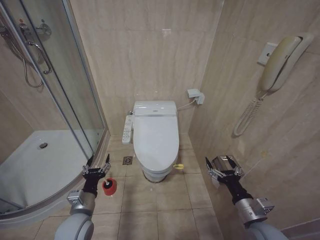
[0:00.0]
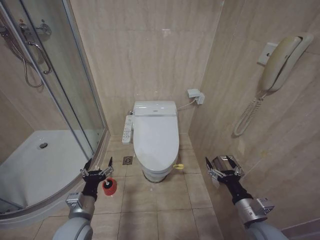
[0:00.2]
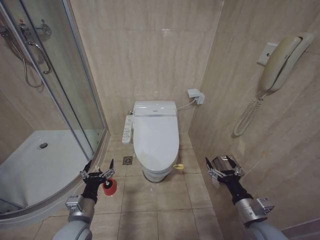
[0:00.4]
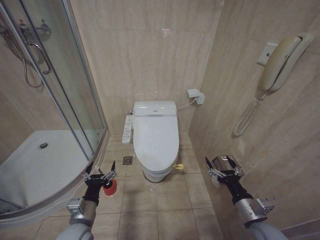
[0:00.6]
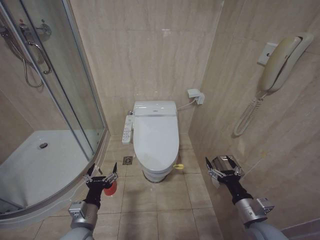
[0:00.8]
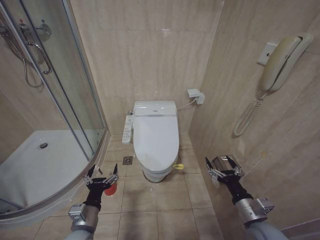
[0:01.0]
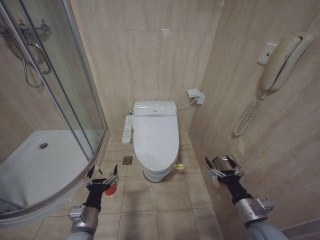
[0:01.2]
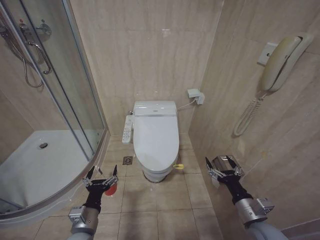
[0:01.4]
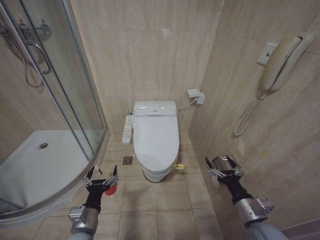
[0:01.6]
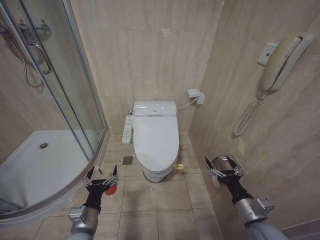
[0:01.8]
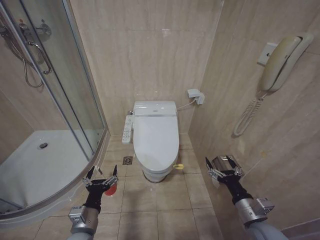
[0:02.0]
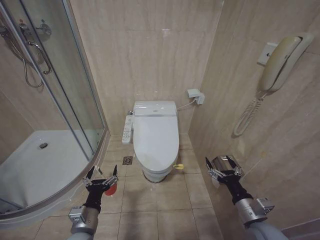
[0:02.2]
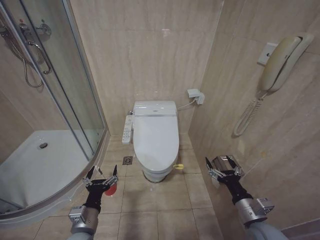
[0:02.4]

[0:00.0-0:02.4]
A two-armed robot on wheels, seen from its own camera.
Task of the whole recording: Open the toilet lid, clean the toilet bowl with a toilet brush, close the toilet lid, and flush.
0:00.0 to 0:01.2: The left gripper is displaced backward by about 5 cm, and opens up.
0:01.2 to 0:02.4: Both grippers stay put.

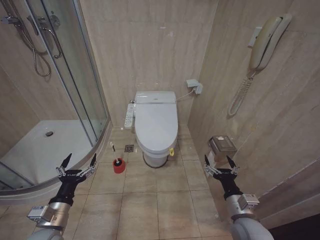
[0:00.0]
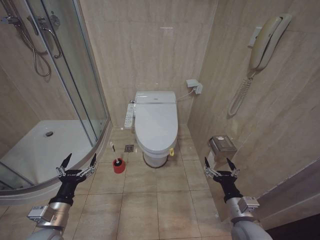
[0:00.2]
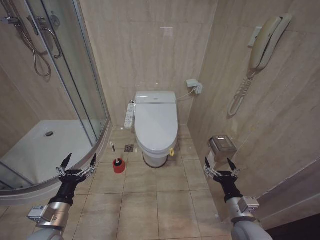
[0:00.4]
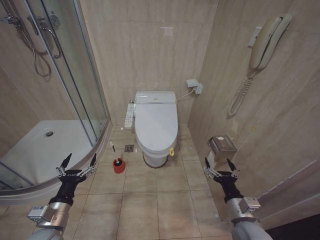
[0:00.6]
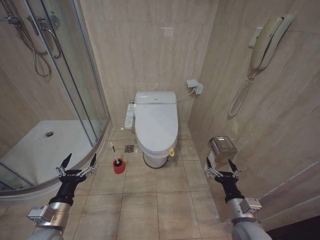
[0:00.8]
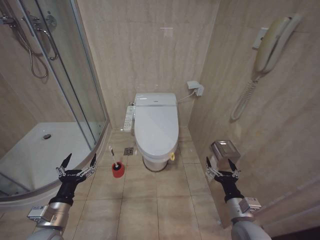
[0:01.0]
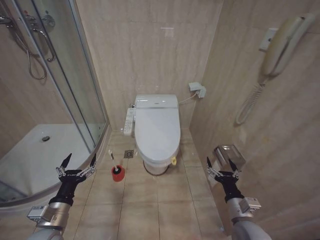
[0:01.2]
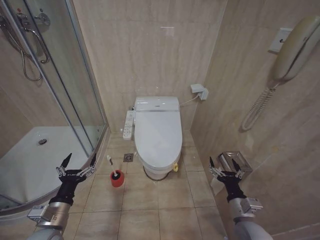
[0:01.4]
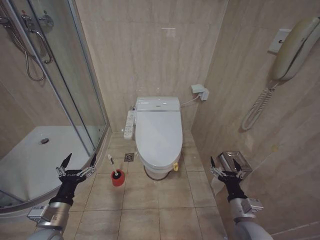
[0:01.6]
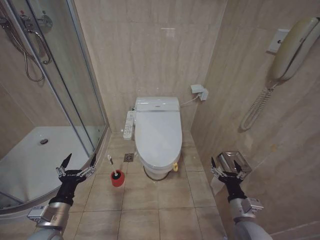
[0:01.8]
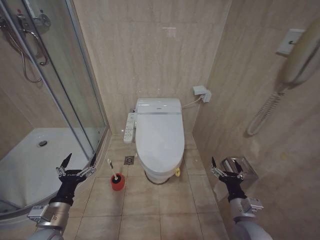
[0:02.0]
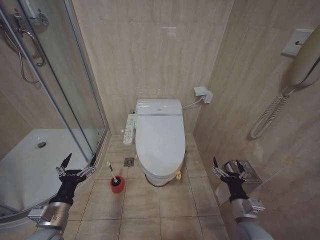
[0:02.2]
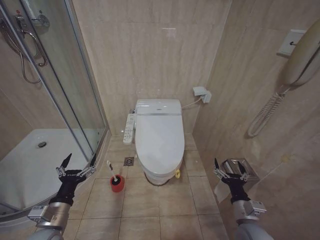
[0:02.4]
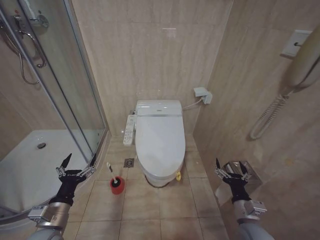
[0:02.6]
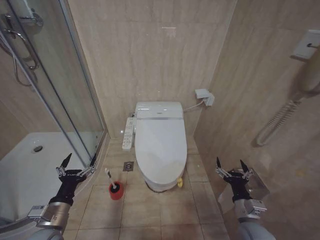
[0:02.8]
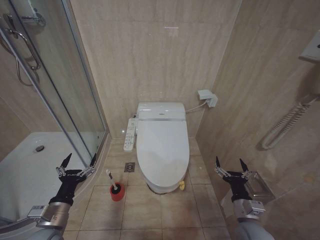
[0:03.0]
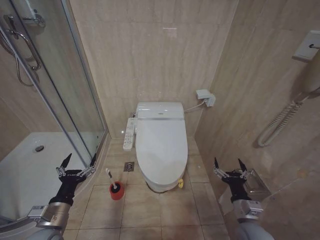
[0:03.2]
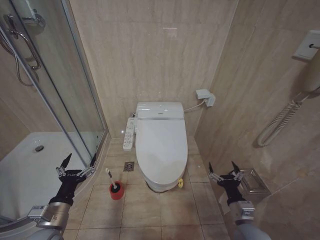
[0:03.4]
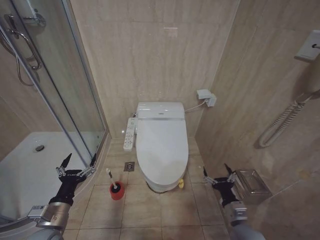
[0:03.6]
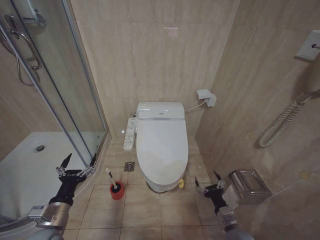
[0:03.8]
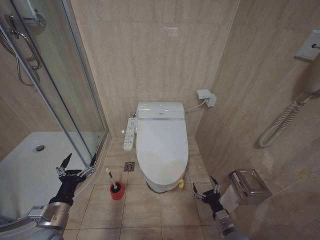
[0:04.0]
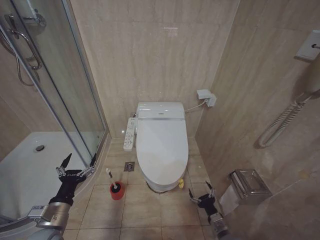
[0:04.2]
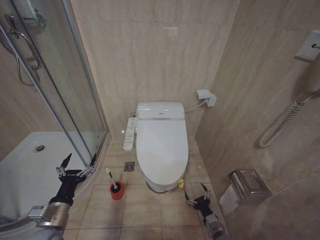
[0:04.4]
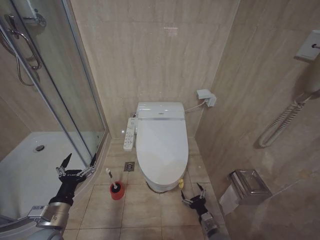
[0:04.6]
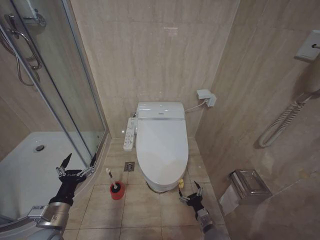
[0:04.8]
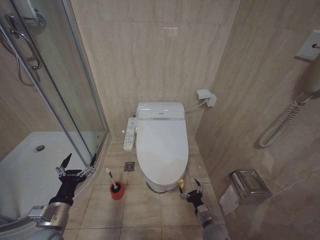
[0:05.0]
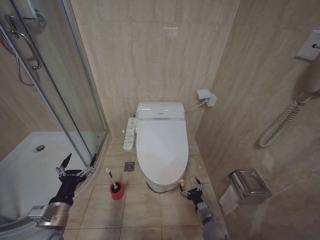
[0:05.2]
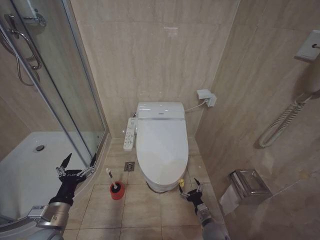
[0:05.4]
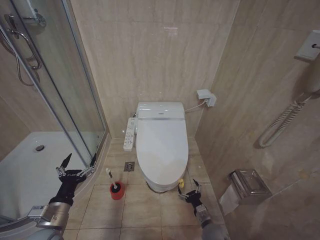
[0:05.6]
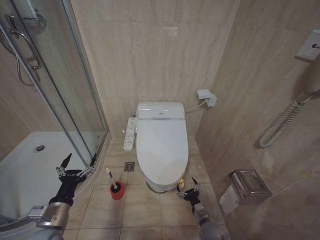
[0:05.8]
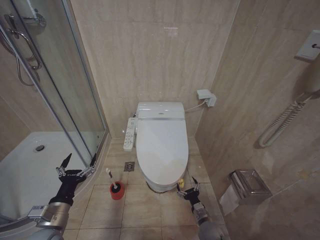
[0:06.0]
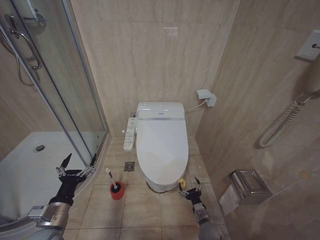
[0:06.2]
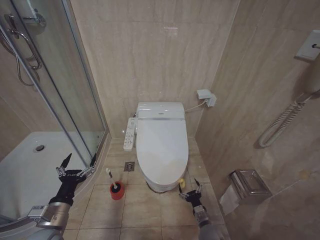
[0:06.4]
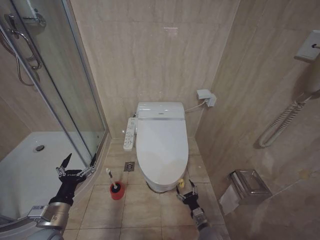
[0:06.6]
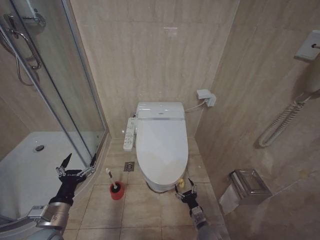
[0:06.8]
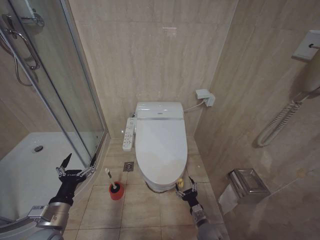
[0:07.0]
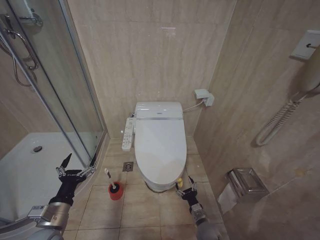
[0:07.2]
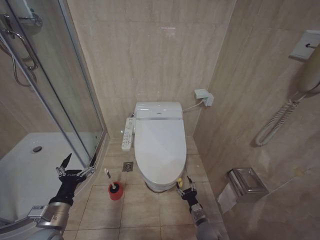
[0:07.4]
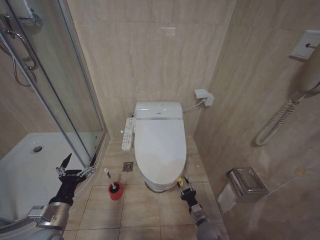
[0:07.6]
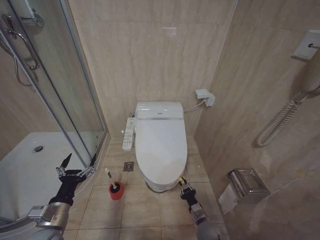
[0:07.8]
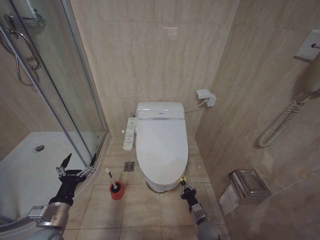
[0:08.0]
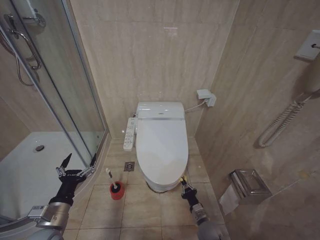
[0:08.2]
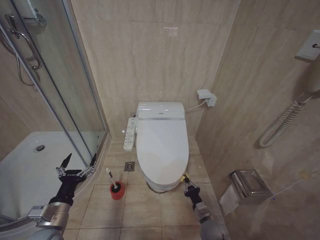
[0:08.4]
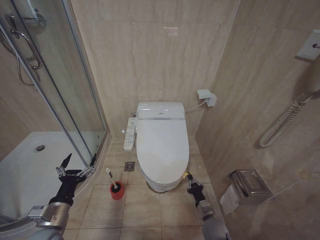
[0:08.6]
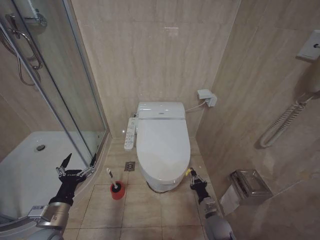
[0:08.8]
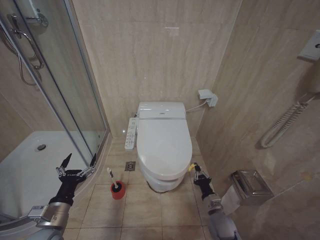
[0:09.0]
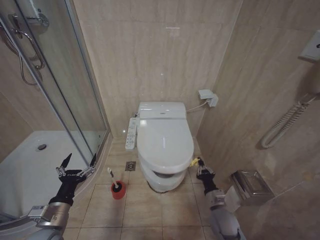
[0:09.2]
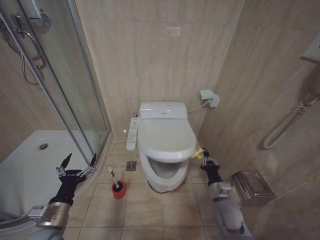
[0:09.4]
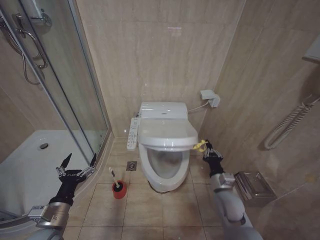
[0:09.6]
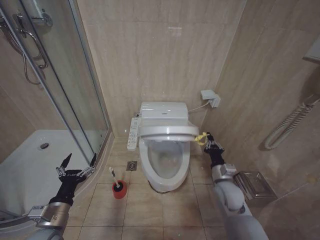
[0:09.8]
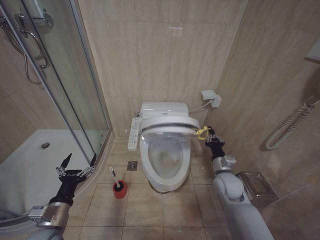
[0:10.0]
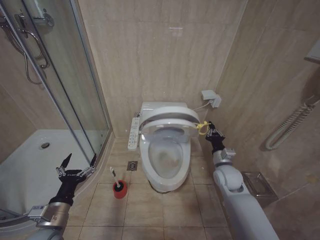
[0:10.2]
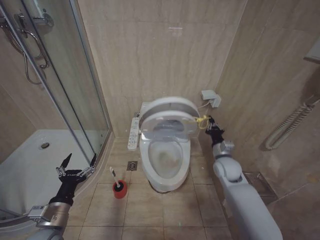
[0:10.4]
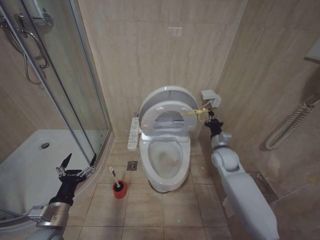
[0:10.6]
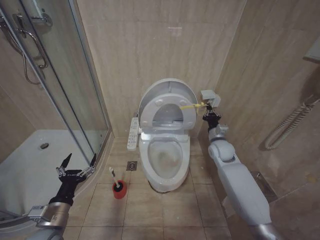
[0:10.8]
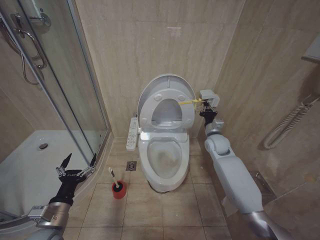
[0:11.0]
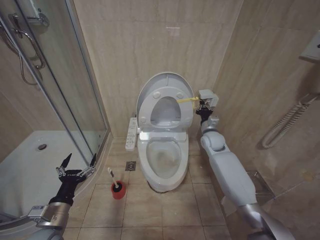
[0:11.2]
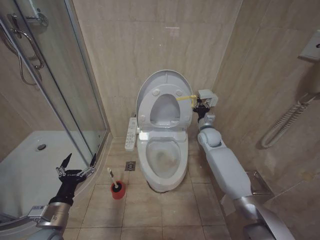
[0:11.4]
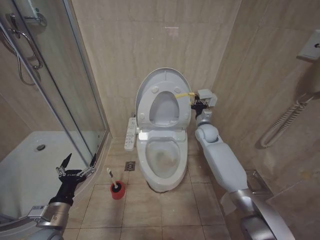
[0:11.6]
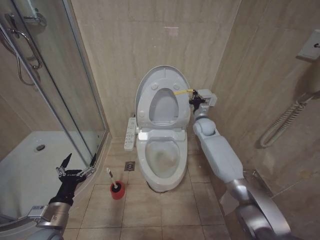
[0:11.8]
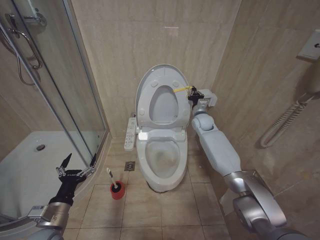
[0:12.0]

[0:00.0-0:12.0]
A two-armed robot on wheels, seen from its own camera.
Task of the whole recording: Open the toilet lid, clean the toilet bowl with a toilet brush, close the toilet lid, and flush.
0:01.6 to 0:03.0: There are only small adjustments of the grippers.
0:03.0 to 0:04.4: The right gripper travels downward by about 15 cm.
0:04.4 to 0:06.0: The right gripper travels forward by about 5 cm.
0:06.0 to 0:07.6: The right gripper closes up.
0:07.6 to 0:09.0: The right gripper goes about 5 cm upward, and closes up.
0:09.0 to 0:10.4: The right gripper shifts about 20 cm upward and forward.
0:10.4 to 0:12.0: The right gripper travels forward and upward by roughly 25 cm.

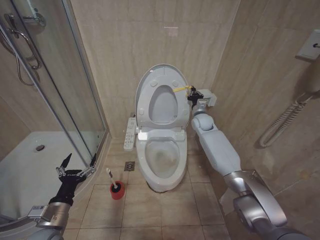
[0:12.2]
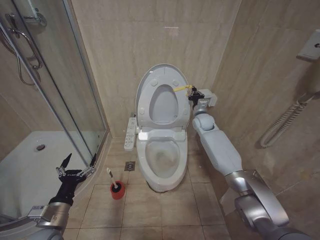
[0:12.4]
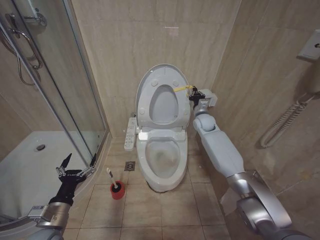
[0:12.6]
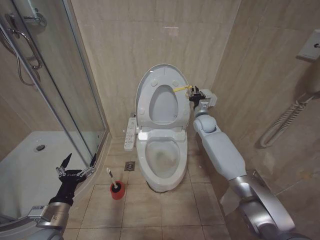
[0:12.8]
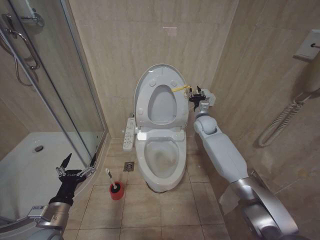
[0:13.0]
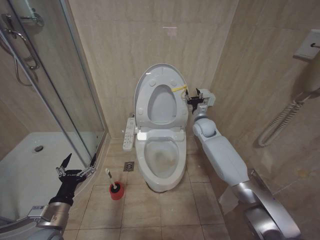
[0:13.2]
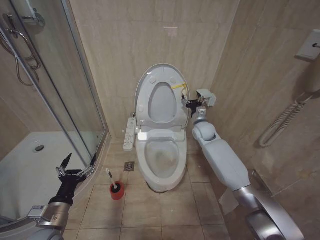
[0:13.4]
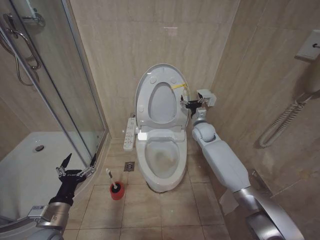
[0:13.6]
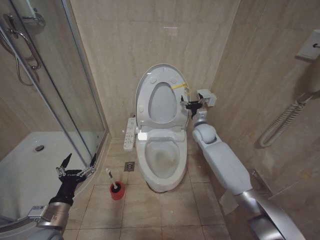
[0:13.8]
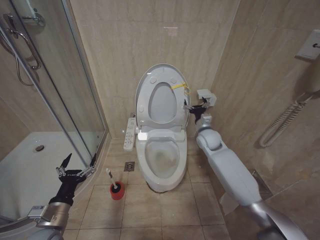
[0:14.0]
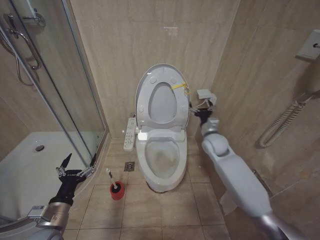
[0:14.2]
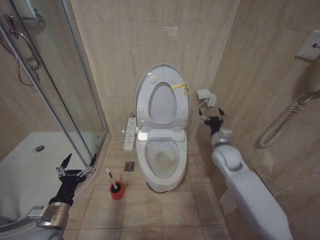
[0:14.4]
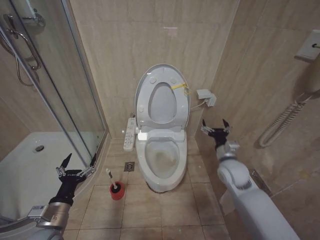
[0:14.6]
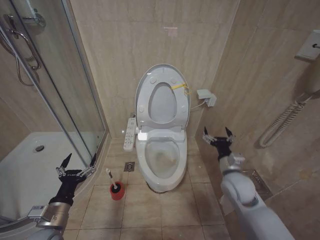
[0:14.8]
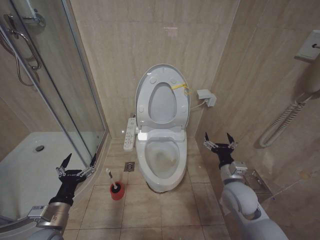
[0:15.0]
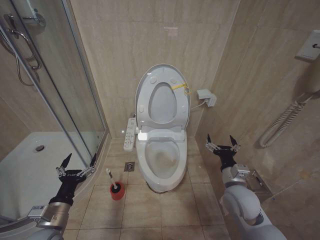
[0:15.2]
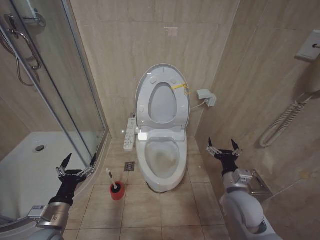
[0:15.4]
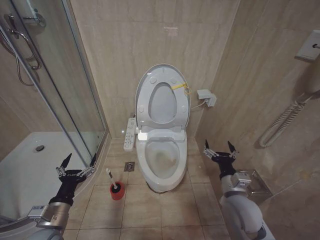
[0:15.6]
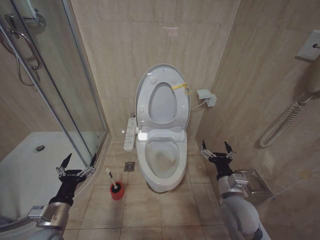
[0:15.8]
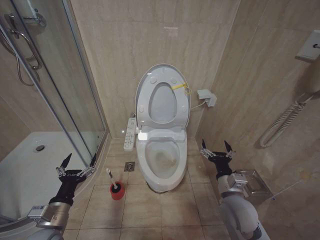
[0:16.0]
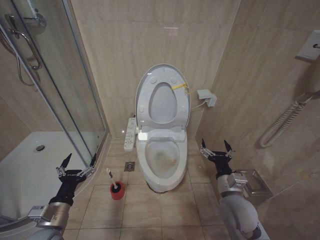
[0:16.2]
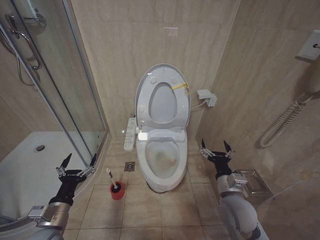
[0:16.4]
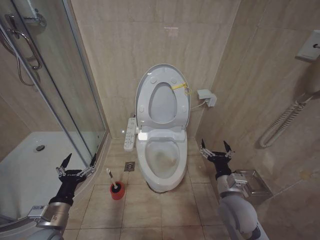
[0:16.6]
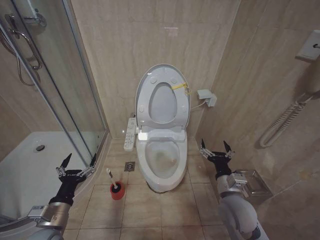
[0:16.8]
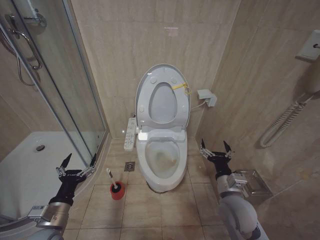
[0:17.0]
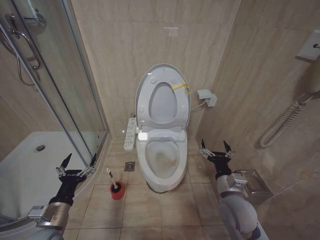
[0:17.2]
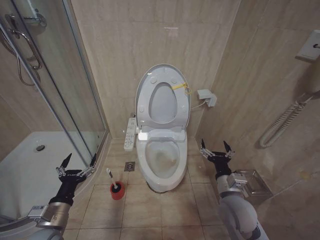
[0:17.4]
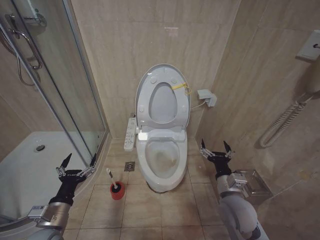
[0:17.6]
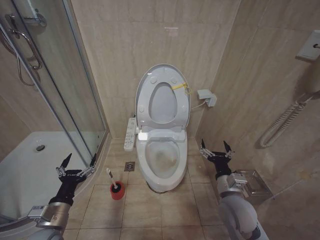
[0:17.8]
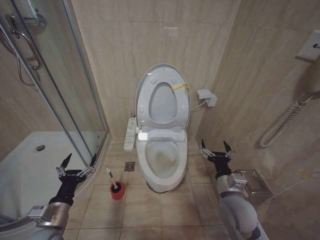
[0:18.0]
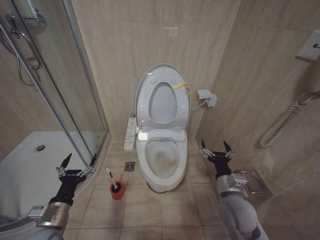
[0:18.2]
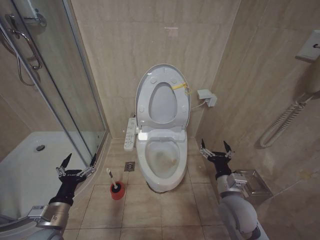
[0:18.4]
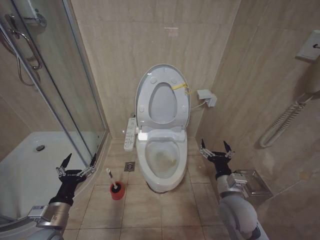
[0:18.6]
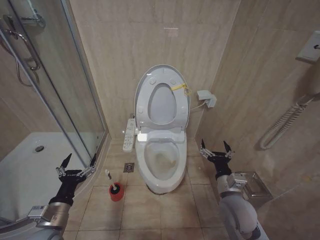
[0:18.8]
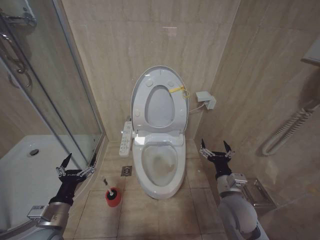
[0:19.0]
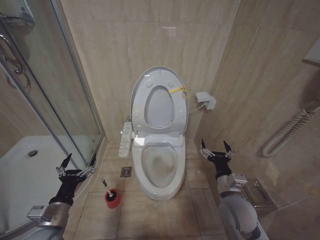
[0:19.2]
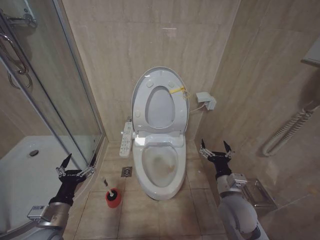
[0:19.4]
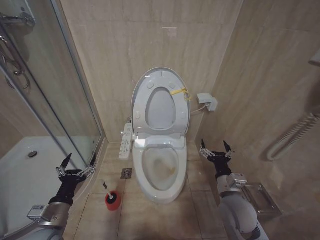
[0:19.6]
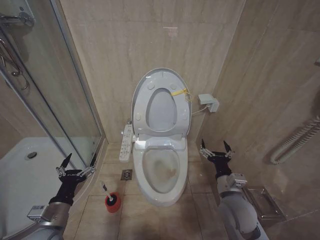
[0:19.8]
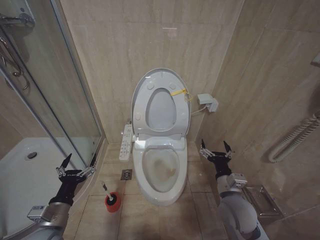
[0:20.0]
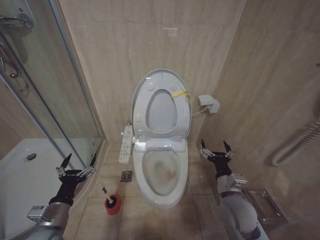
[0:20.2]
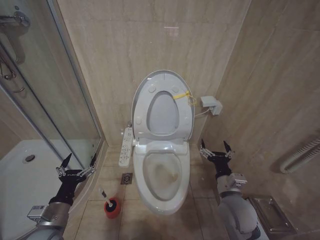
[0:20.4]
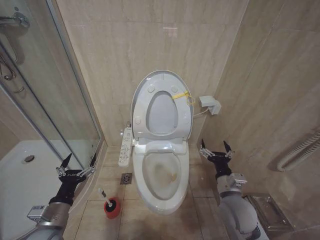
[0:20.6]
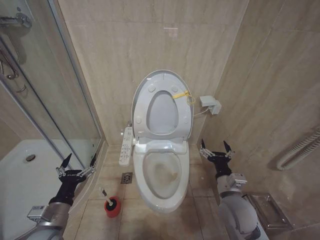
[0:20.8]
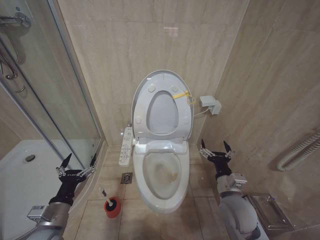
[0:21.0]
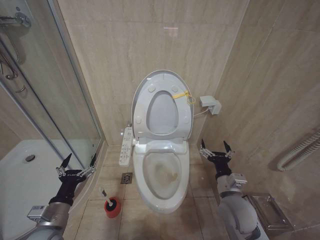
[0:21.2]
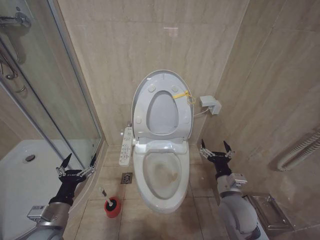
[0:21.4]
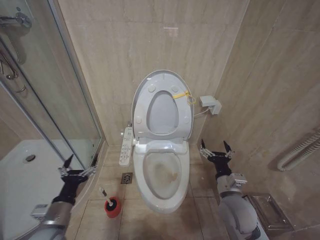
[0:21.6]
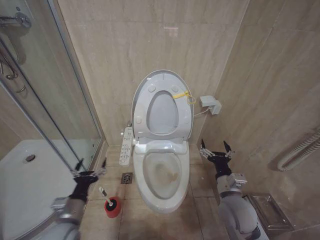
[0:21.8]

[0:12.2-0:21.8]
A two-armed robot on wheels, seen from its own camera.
Task of the whole recording: Open the toilet lid, clean the toilet bowl with a toilet brush, close the toilet lid, and flush.
0:12.2 to 0:13.8: The right gripper shifts roughly 5 cm backward, and opens its fingers.
0:13.8 to 0:15.4: The right gripper travels backward by about 25 cm.
0:15.4 to 0:17.0: The grippers stay close to where they were, moving slightly.
0:17.0 to 0:20.2: Neither gripper changes place.
0:20.2 to 0:21.8: The grippers make only small movements.
